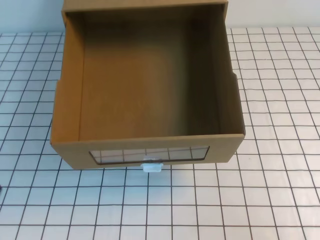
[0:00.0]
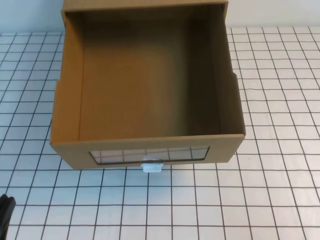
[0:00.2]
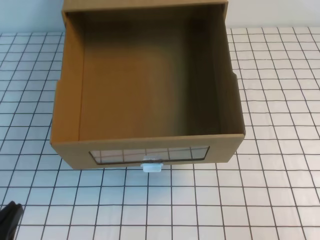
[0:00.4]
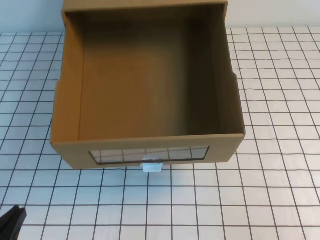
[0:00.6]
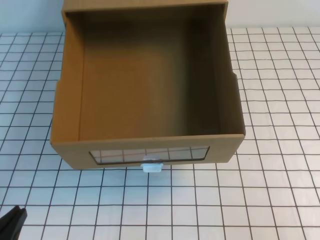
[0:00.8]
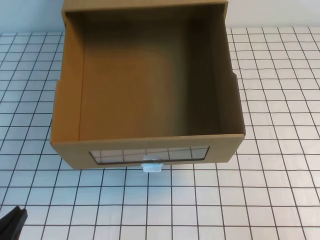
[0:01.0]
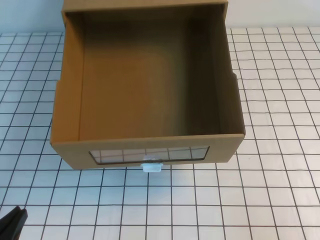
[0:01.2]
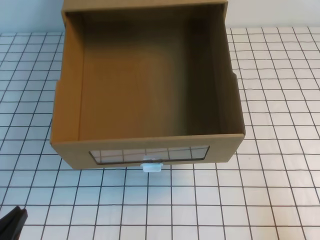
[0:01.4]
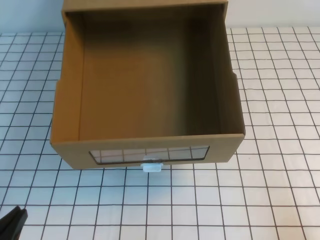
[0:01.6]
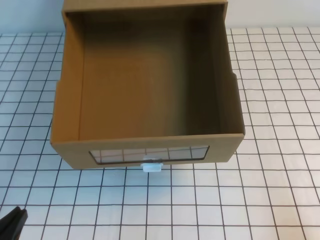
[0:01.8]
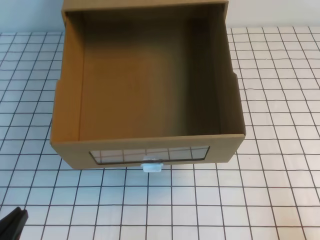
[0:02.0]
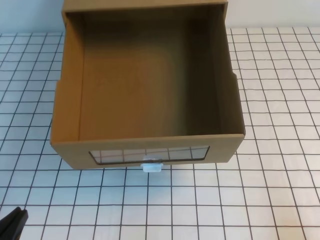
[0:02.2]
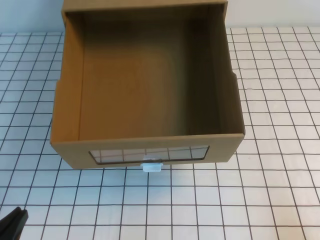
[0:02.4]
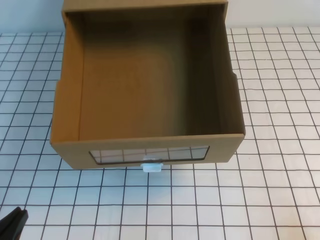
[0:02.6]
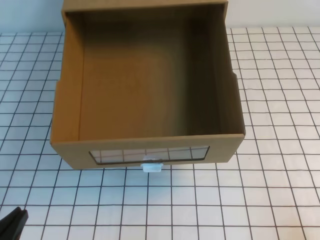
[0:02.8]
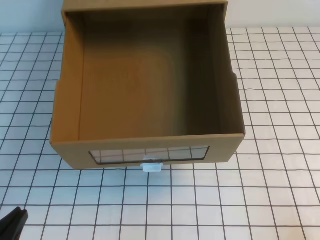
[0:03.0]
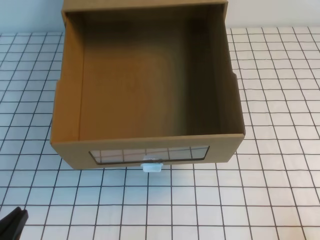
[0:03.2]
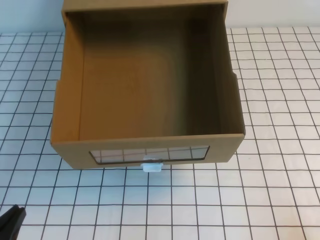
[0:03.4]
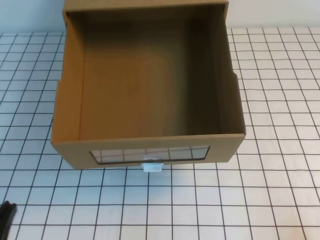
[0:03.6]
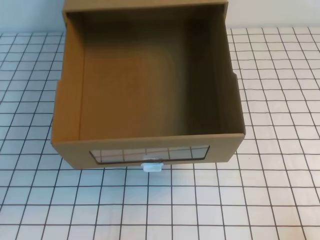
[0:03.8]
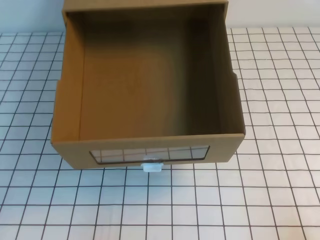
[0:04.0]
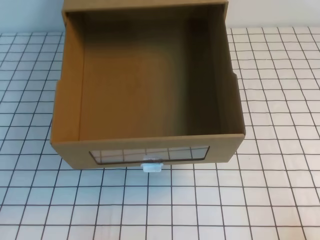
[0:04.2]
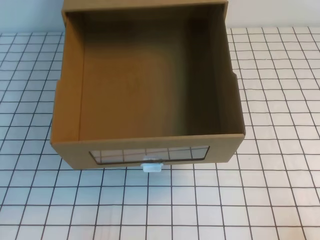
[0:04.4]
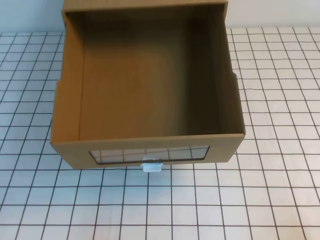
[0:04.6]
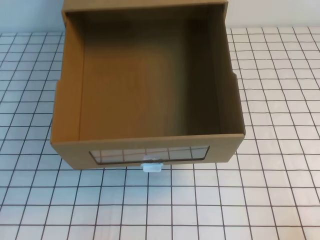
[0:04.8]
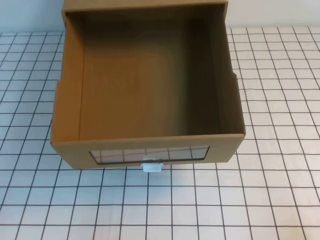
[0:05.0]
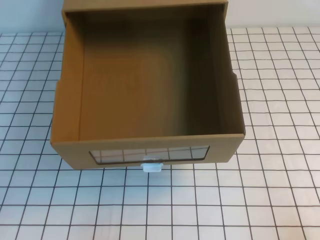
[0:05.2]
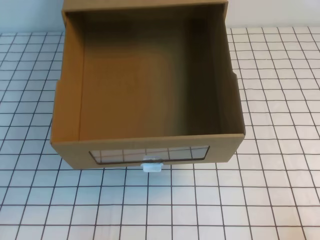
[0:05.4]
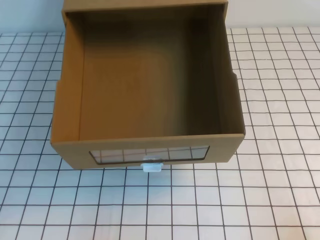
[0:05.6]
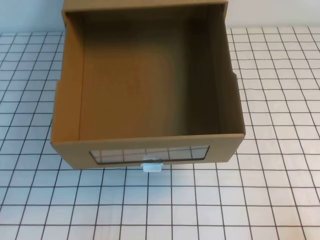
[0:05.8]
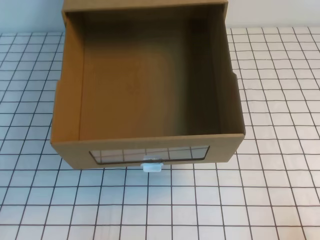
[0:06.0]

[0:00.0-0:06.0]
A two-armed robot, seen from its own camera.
Task of the whole recording: open the shoebox on the white tablecloth.
Step, 0:00.0 to 0:06.0: Open the shoe box.
0:00.0 to 0:01.6: Both grippers travel together downward, roughly 10 cm.
0:04.4 to 0:06.0: Neither gripper changes place.

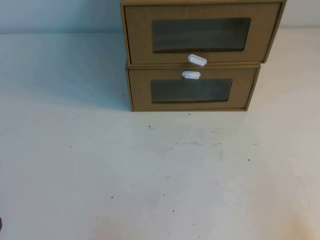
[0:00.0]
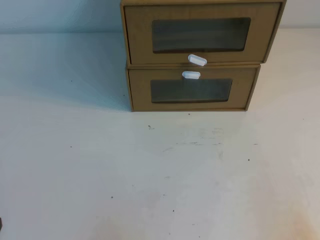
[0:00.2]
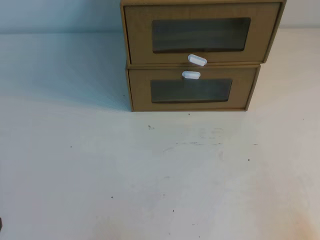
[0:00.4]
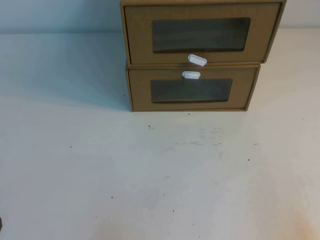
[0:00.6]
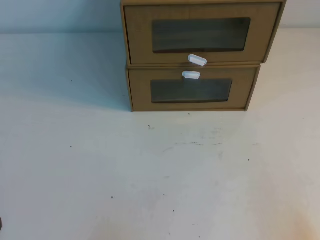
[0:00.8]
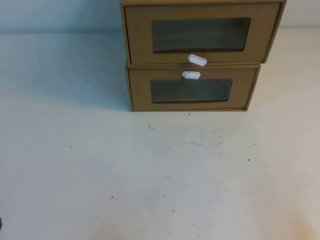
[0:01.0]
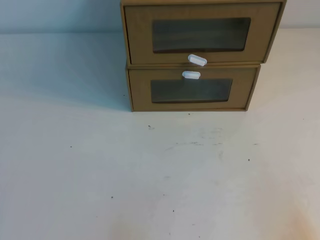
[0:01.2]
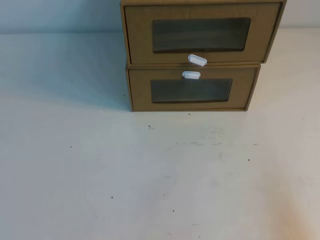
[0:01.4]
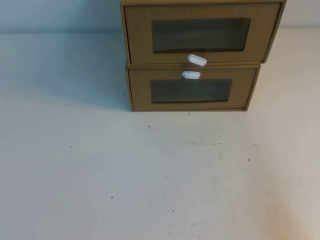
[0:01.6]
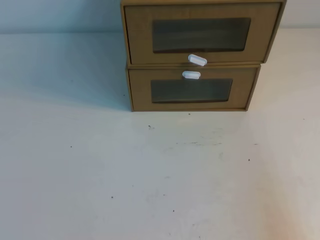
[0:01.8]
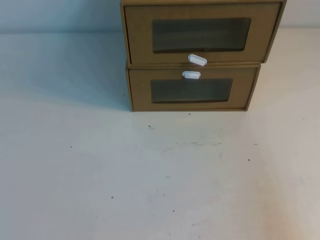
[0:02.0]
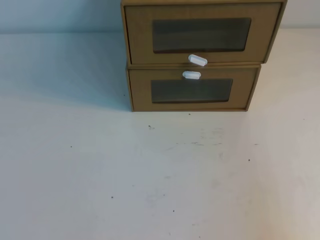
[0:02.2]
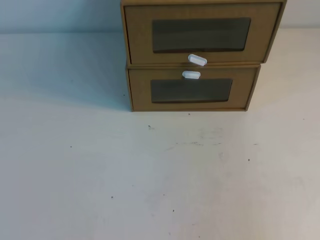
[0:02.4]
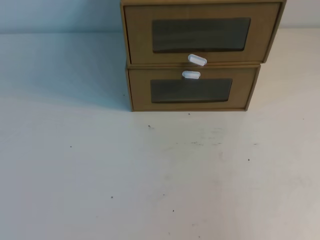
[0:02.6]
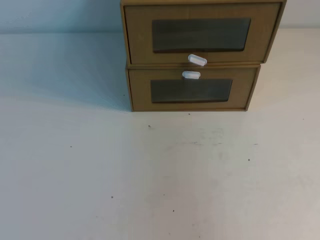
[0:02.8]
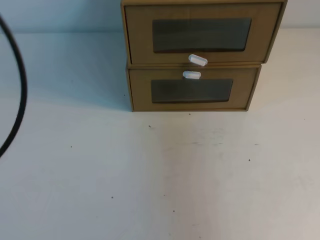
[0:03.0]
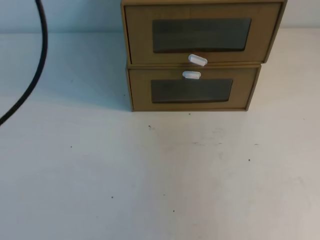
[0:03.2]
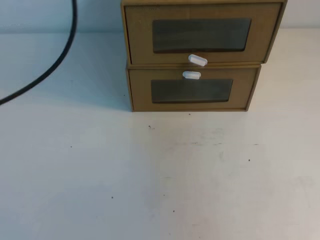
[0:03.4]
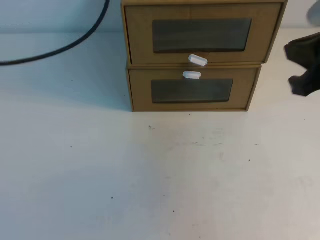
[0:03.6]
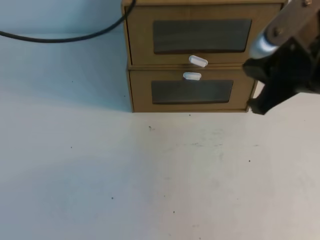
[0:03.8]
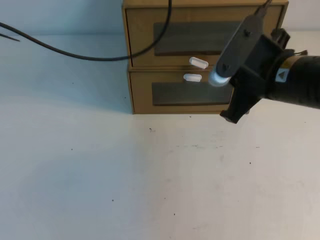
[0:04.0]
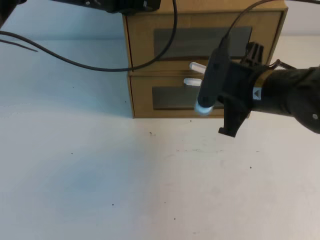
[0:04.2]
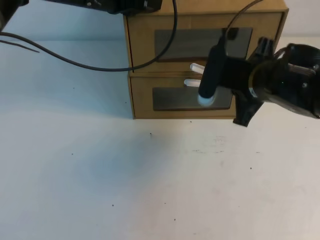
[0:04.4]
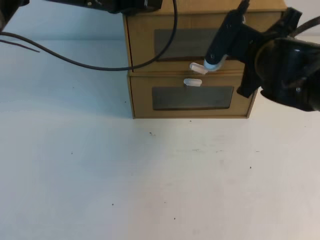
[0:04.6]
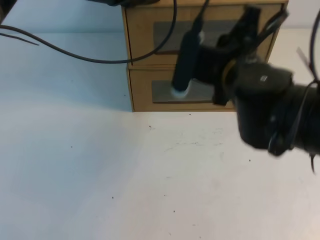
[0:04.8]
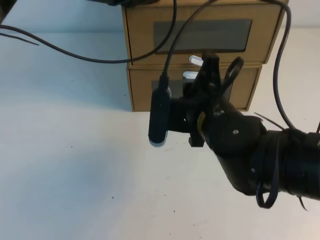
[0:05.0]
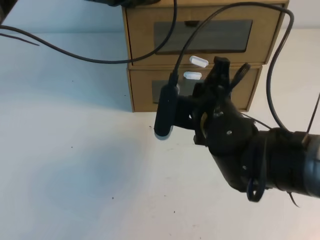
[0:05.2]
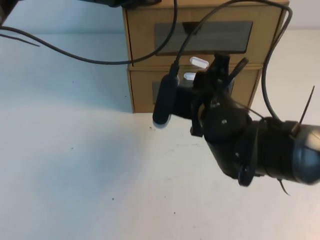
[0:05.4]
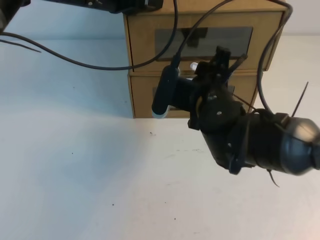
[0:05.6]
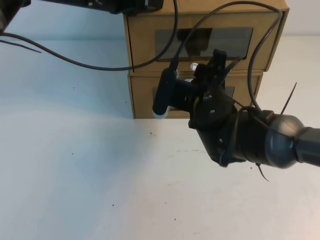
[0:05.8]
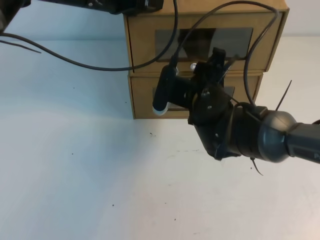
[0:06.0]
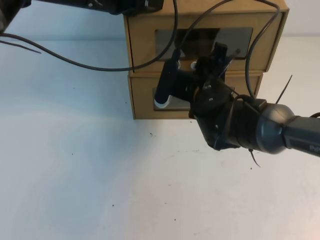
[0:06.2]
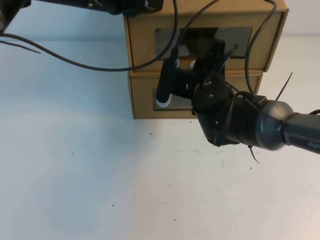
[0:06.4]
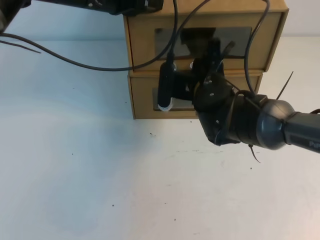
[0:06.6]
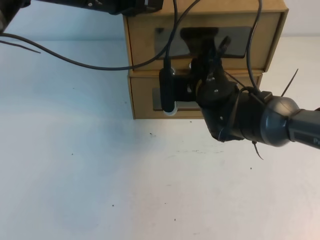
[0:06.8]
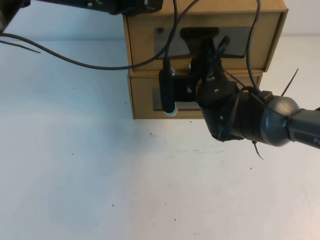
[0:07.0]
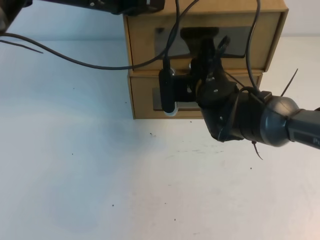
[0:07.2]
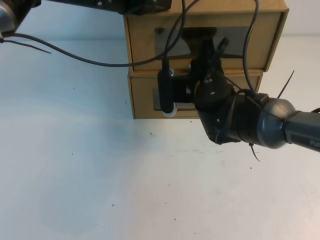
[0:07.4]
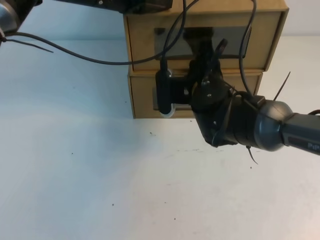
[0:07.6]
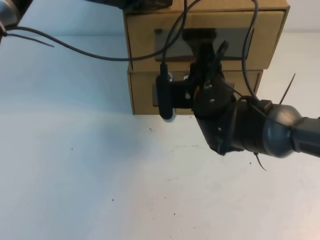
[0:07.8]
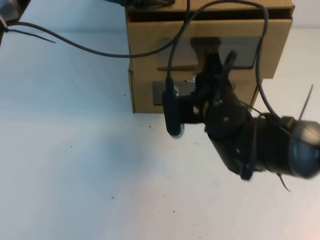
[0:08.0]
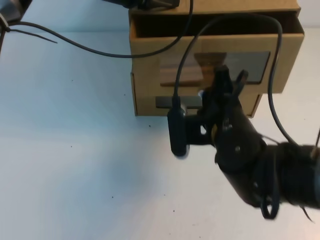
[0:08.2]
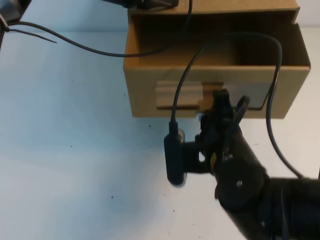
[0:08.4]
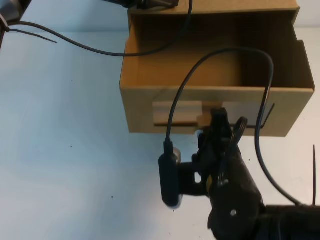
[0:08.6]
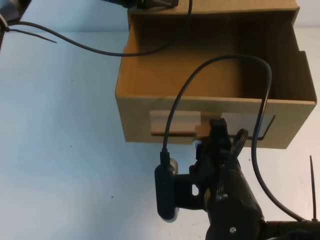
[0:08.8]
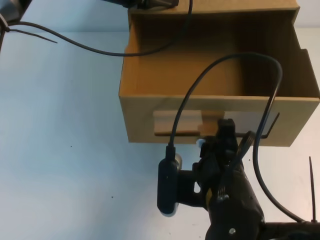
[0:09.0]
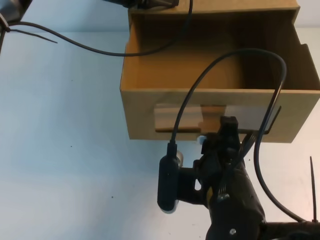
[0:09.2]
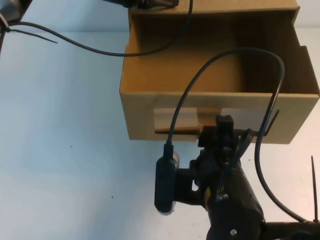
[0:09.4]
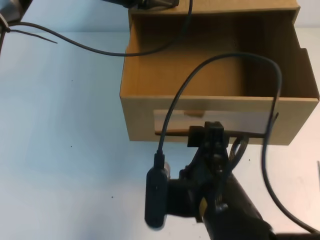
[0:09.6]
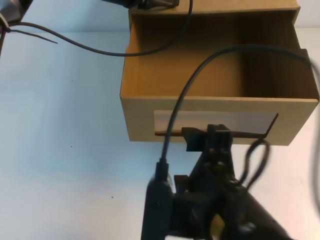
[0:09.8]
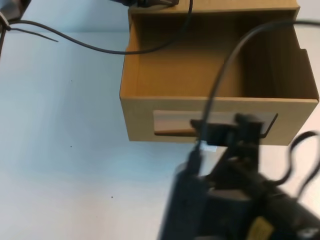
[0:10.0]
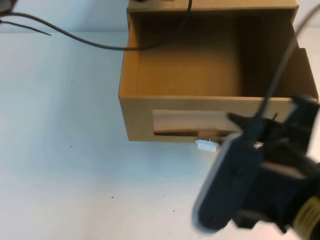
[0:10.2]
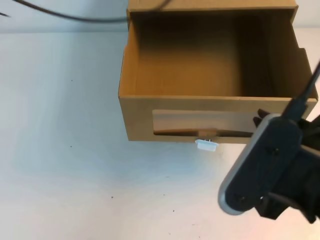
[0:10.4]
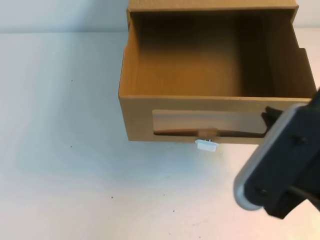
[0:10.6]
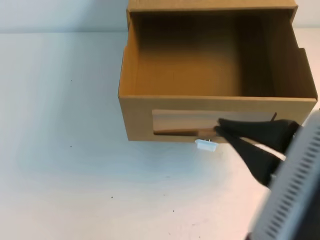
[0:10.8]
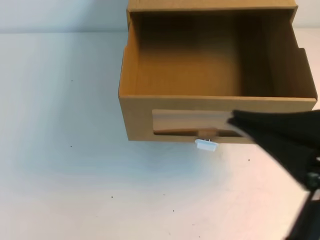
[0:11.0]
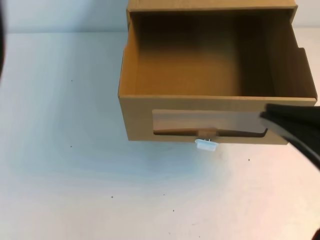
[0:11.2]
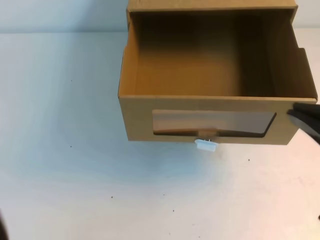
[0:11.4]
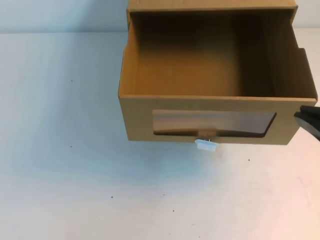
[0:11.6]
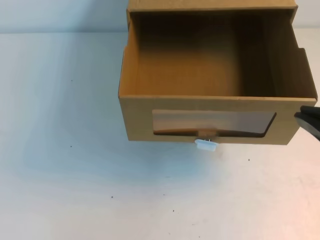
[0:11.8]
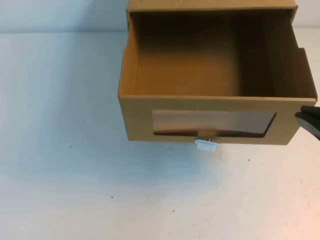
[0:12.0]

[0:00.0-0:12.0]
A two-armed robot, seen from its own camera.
Task of the whole recording: open the shoebox on the table.
0:01.6 to 0:03.0: The right gripper heads upward, covering some 25 cm. The left gripper heads upward and forward, covering some 25 cm.
0:03.0 to 0:04.4: The right gripper goes about 30 cm forward, downward and to the left, while the left gripper is displaced forward and to the right by approximately 30 cm.
0:04.4 to 0:06.0: The right gripper heads to the left and downward, covering approximately 10 cm, and opens up.
0:06.0 to 0:07.6: The right gripper closes its fingers.
0:07.6 to 0:09.0: The right gripper shifts about 20 cm backward.
0:09.0 to 0:10.4: The left gripper goes about 10 cm upward and backward, while the right gripper heads upward, backward and to the right, covering approximately 15 cm, and opens, then closes once more.
0:10.4 to 0:12.0: The left gripper moves backward and to the left, some 40 cm, while the right gripper is displaced to the right by approximately 5 cm.

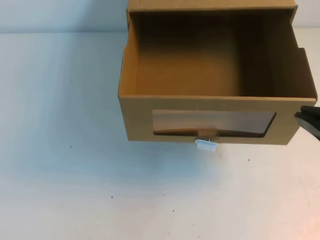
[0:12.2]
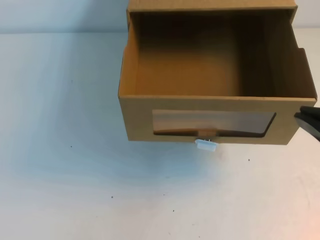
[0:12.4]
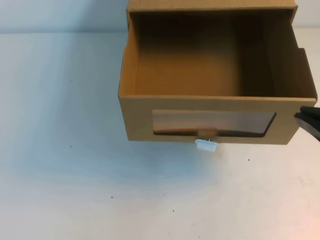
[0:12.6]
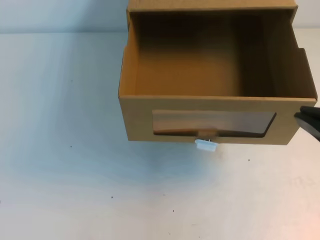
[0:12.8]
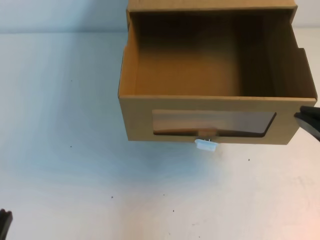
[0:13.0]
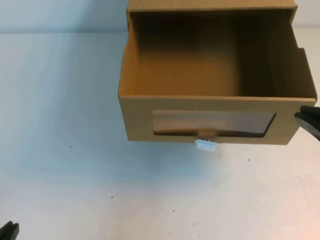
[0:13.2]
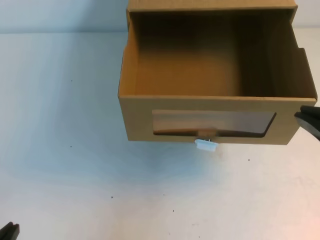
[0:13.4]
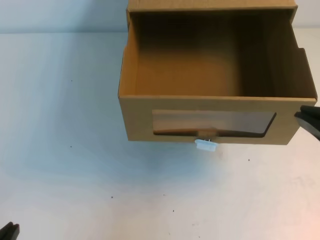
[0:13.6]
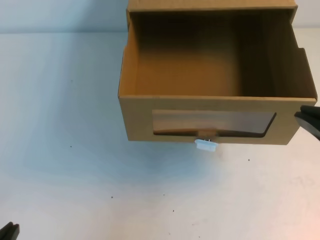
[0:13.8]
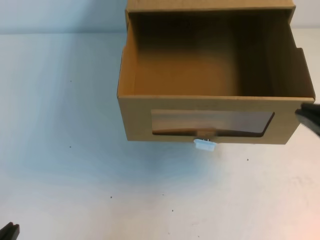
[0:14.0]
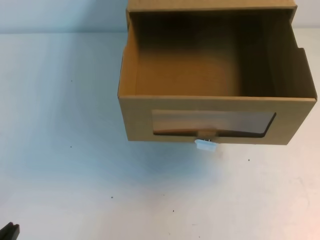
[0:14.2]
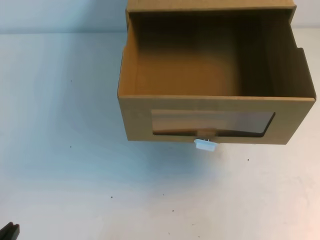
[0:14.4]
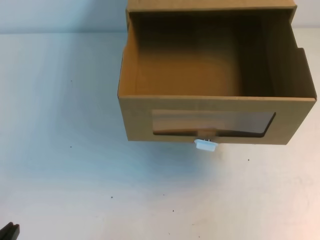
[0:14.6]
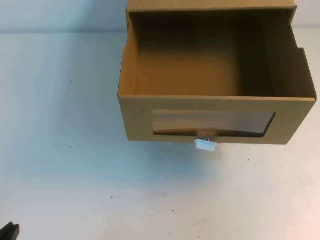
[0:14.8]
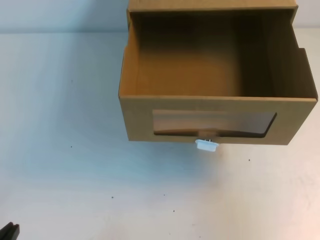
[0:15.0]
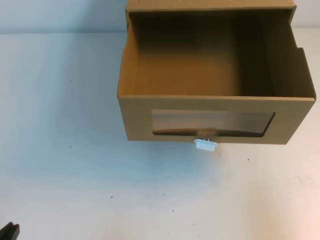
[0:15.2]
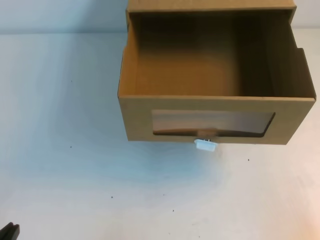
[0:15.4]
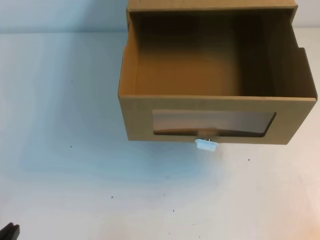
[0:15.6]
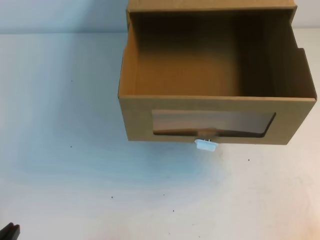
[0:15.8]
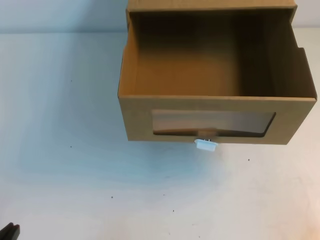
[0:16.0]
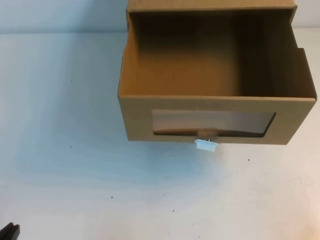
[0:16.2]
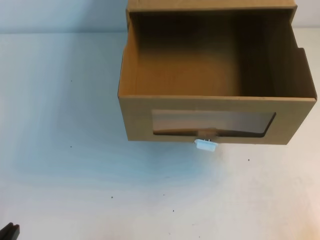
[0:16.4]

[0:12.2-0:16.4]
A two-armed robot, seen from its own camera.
Task of the whole recording: open the shoebox on the table.
Step, 0:12.2 to 0:16.4: Open the shoe box.
0:13.6 to 0:15.0: The right gripper shifts roughly 10 cm to the right and downward.
0:15.0 to 0:16.4: The right gripper moves downward, some 15 cm.
